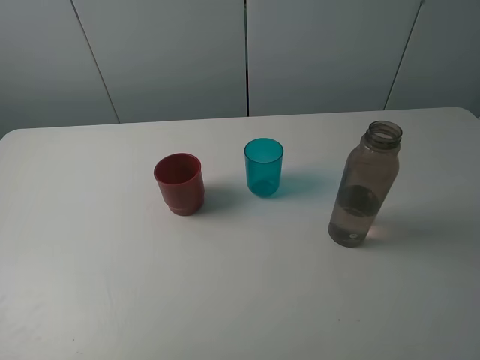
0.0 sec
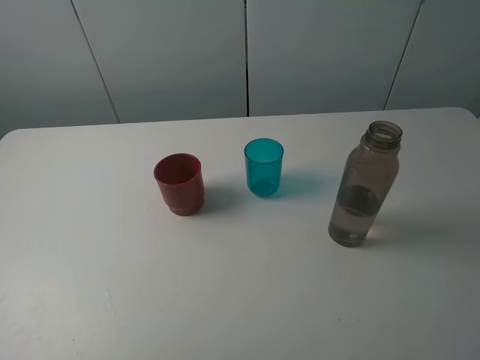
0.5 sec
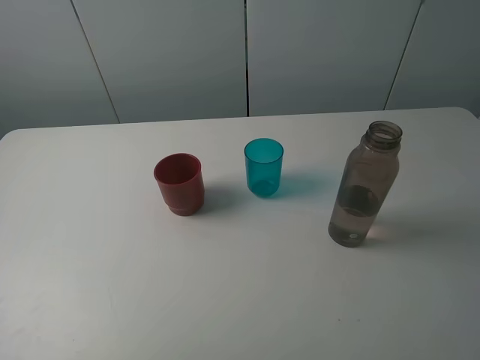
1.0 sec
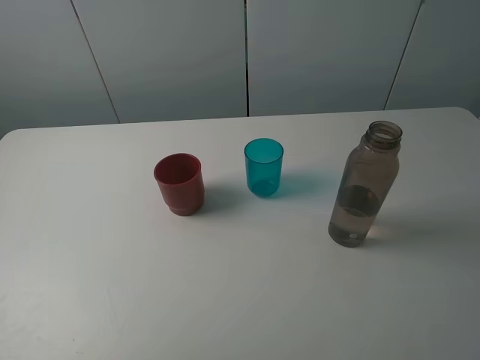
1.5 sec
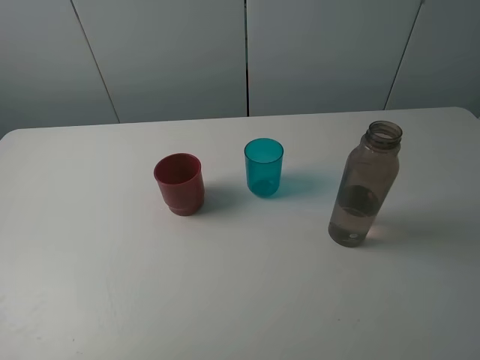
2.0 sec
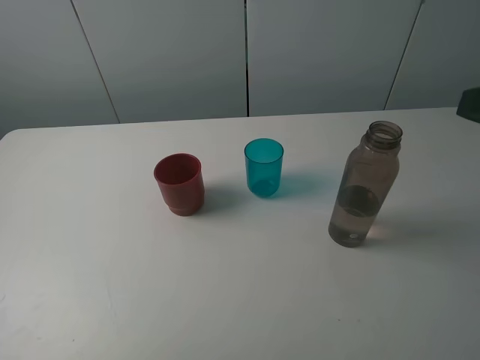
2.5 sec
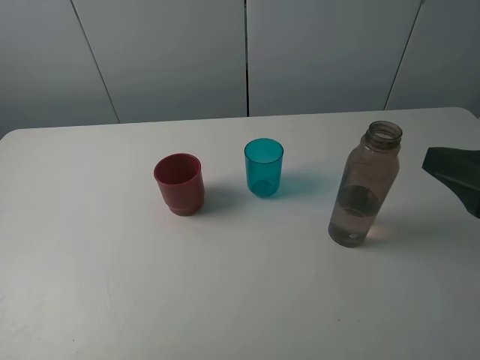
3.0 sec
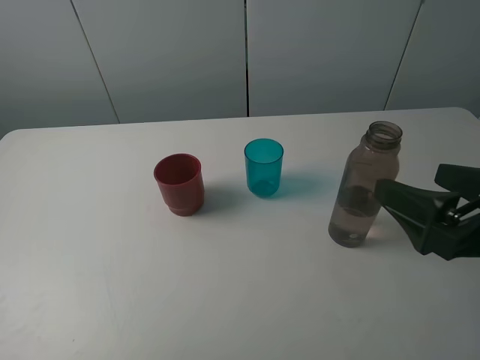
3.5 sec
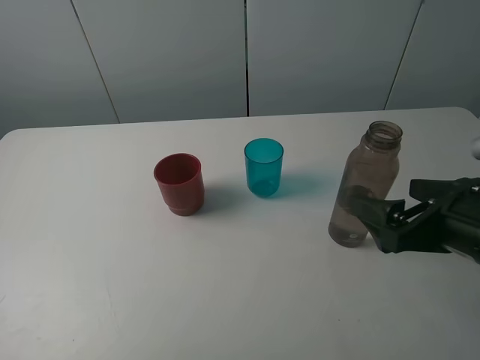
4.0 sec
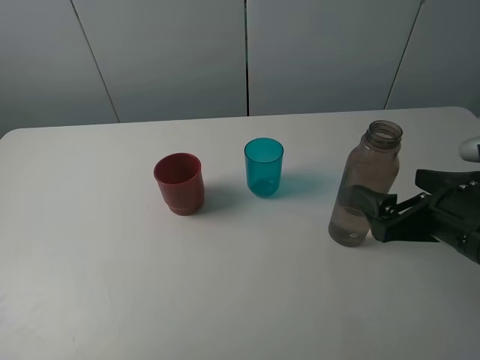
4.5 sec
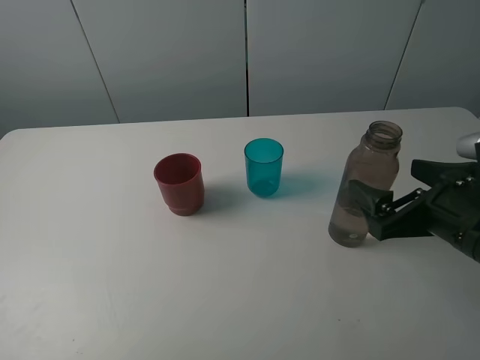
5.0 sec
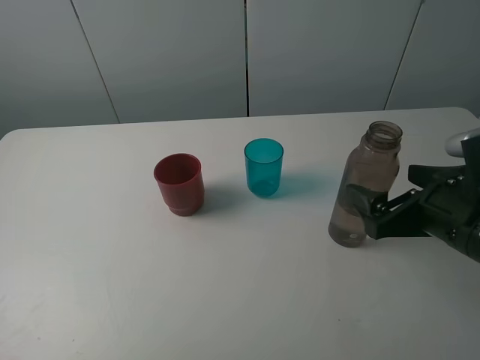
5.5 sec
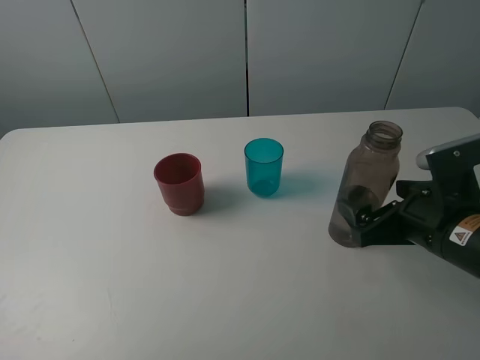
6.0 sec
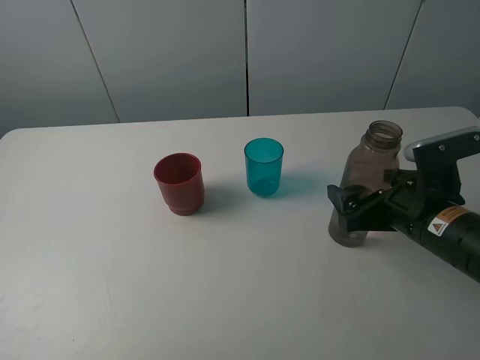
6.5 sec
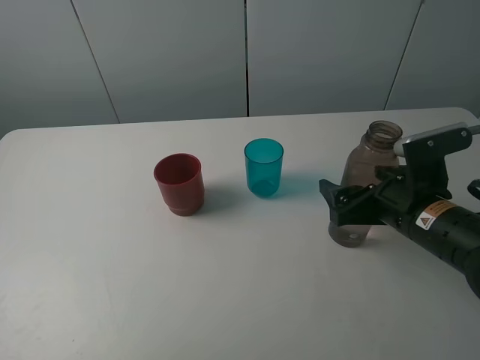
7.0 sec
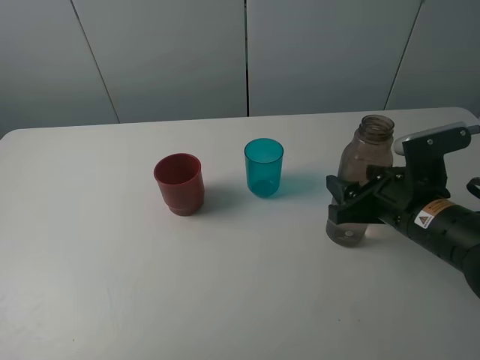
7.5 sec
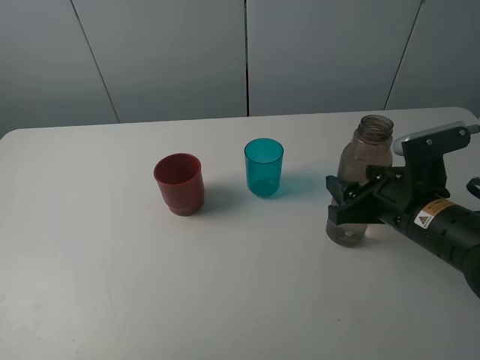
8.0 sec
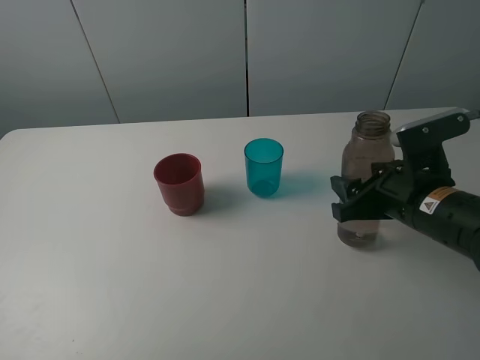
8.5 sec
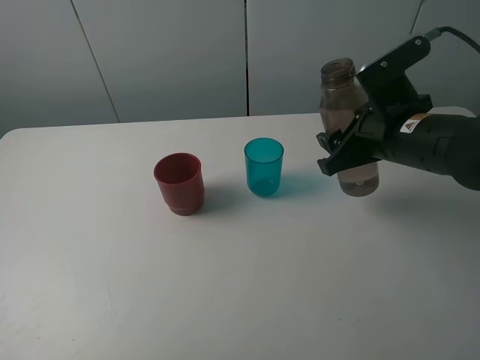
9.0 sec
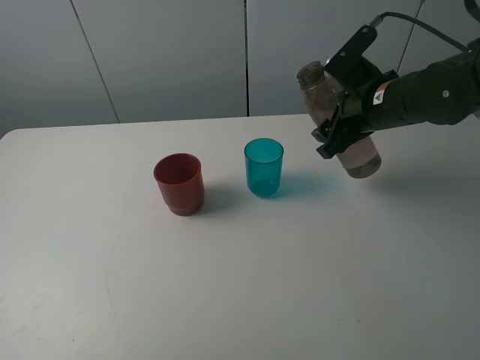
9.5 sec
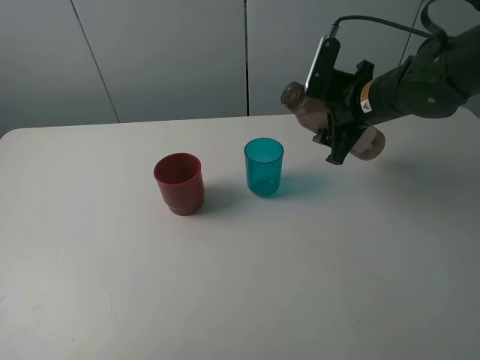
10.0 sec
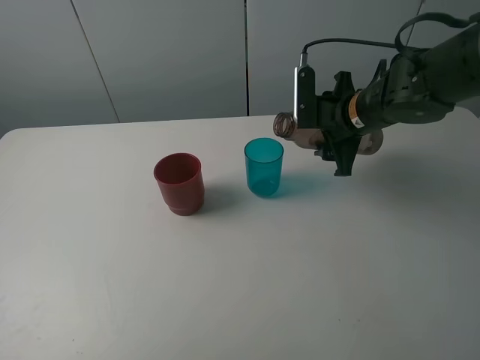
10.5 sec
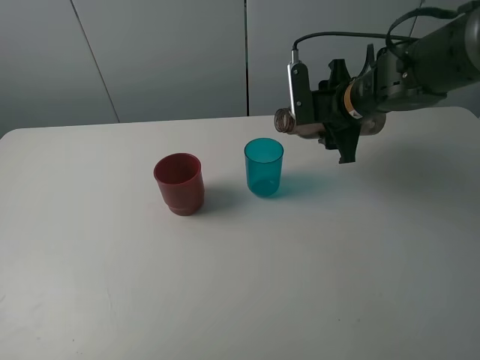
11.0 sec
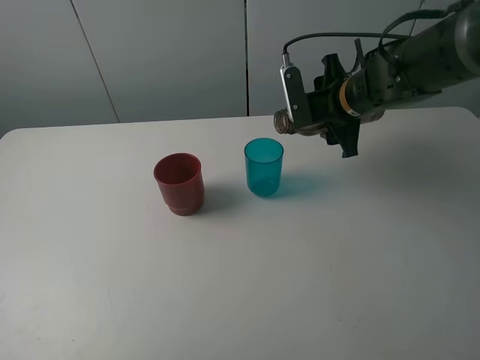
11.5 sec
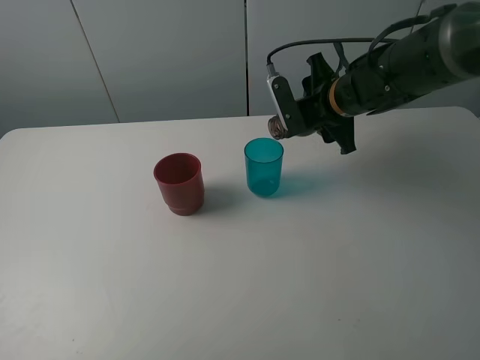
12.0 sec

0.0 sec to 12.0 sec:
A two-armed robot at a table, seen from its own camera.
Task of the whole recording: pick up the bottle and pour water into the cup, then pick up the cup containing water and pour it into another cup.
Step, 0.0 sec to 7.5 sec: Grasp the brown bottle with the right gripper.
2.0 sec to 4.0 sec: The right gripper goes about 15 cm downward and to the left.
4.0 sec to 6.0 sec: The right gripper shifts by approximately 5 cm.
6.0 sec to 8.0 sec: The right gripper closes its fingers.
8.0 sec to 10.0 sec: The right gripper is displaced forward by about 15 cm.

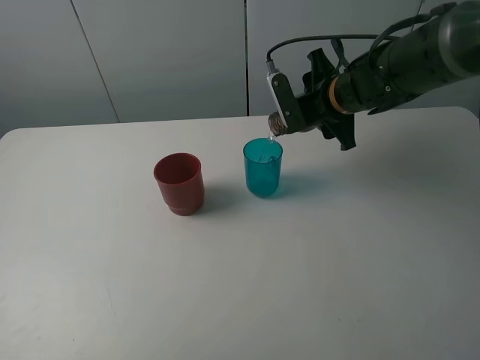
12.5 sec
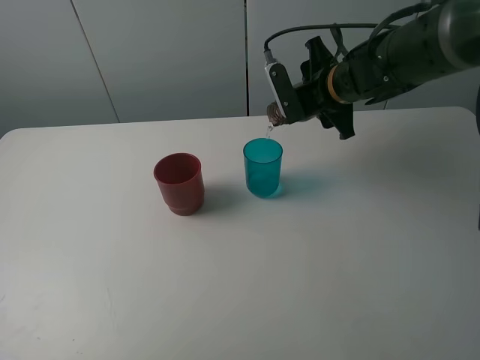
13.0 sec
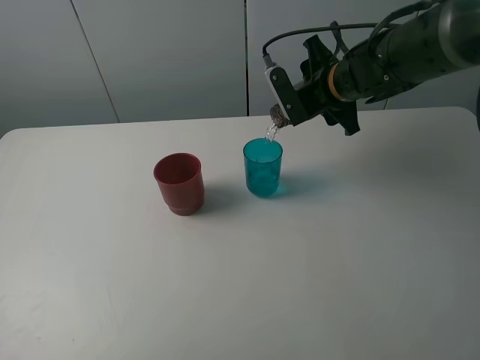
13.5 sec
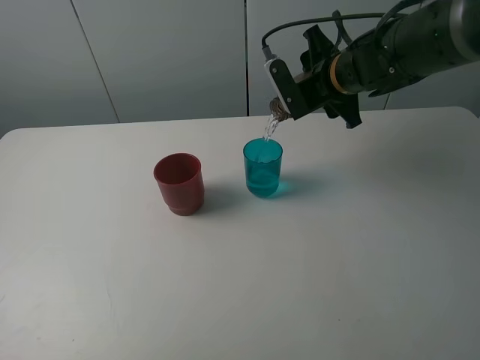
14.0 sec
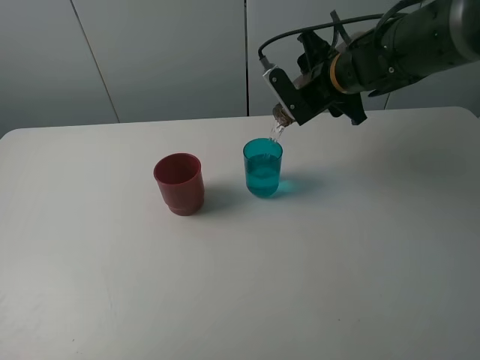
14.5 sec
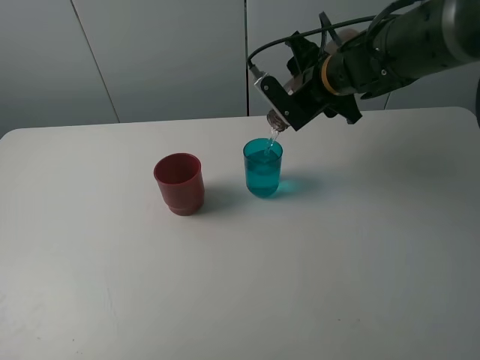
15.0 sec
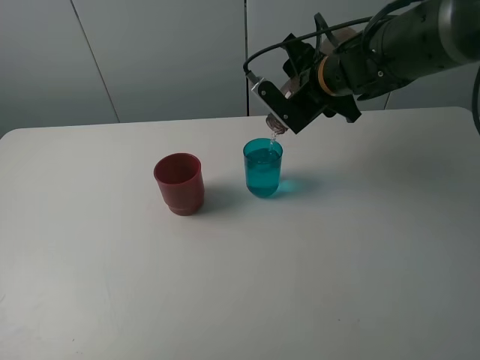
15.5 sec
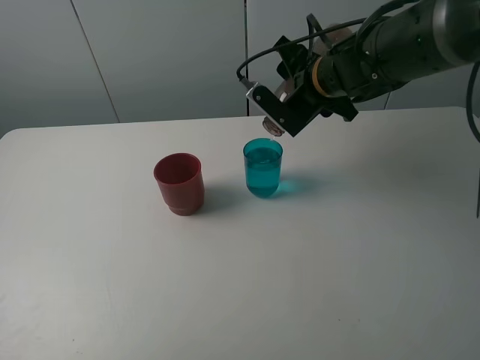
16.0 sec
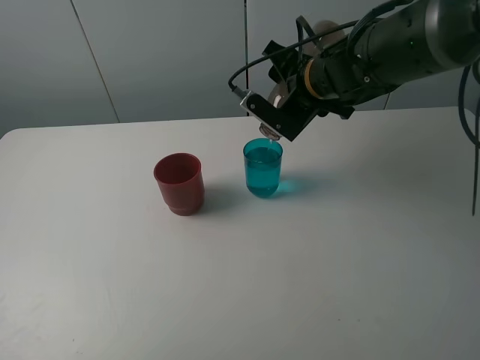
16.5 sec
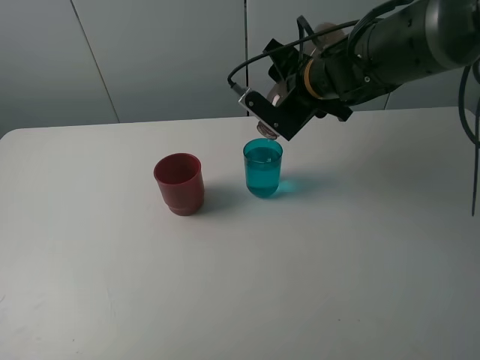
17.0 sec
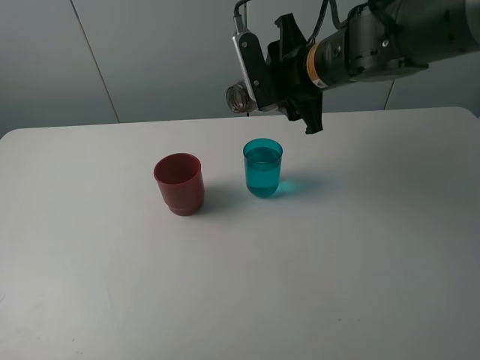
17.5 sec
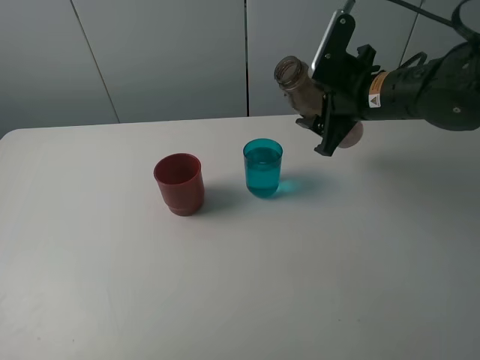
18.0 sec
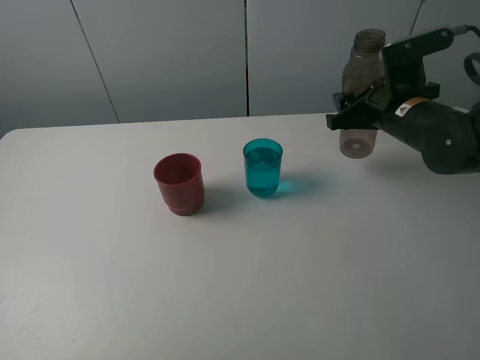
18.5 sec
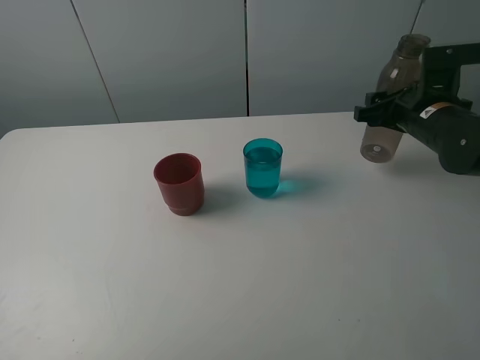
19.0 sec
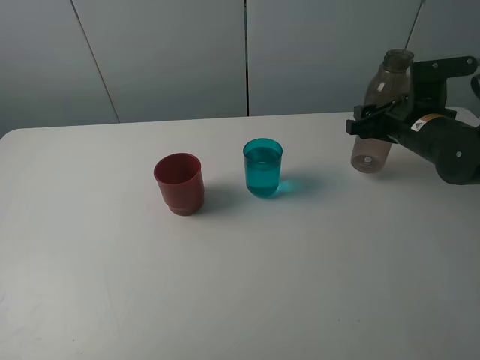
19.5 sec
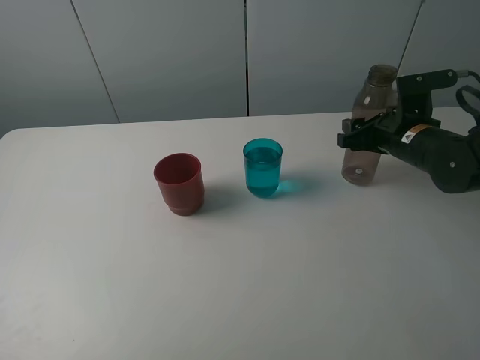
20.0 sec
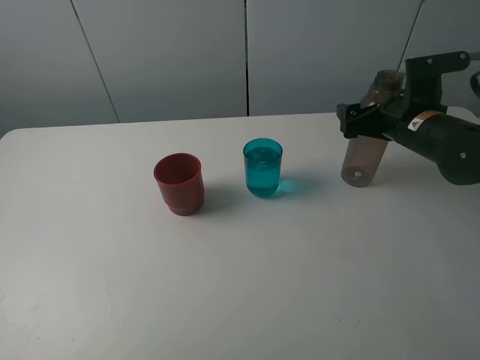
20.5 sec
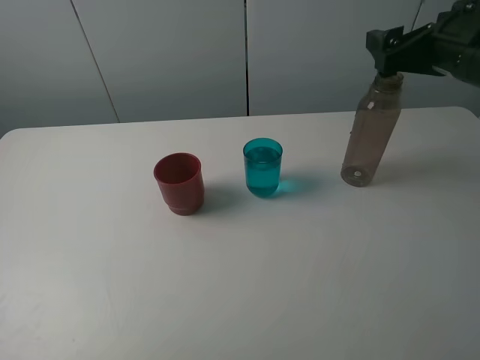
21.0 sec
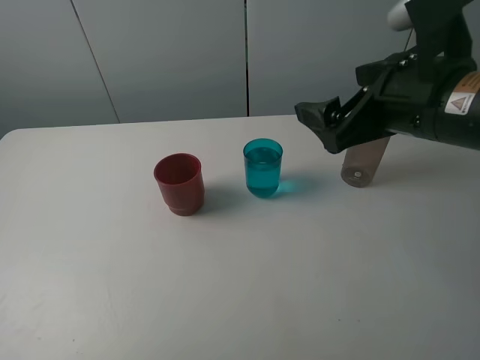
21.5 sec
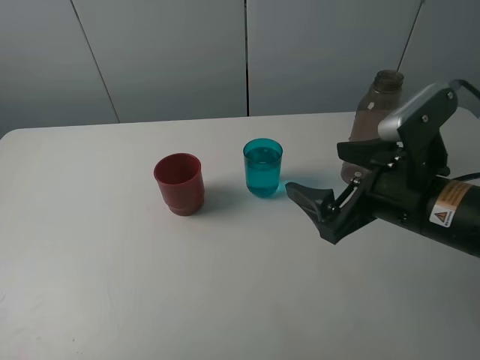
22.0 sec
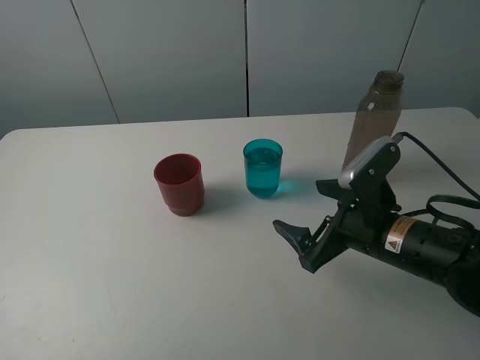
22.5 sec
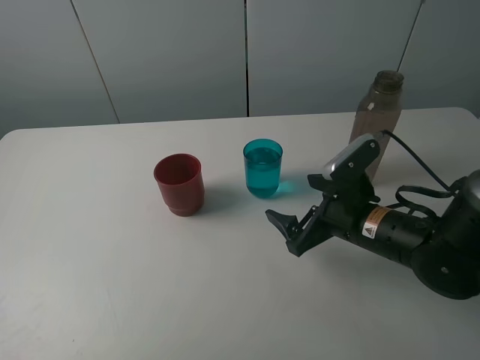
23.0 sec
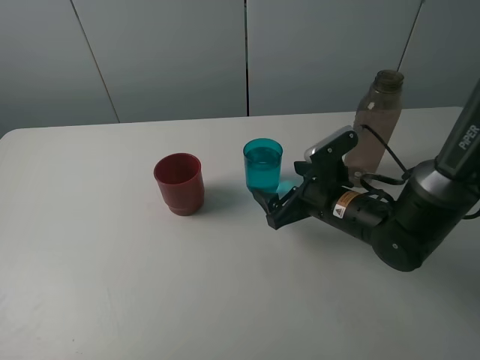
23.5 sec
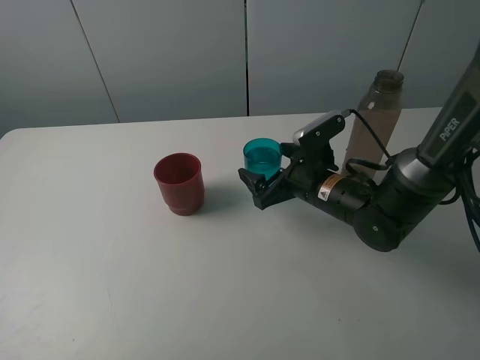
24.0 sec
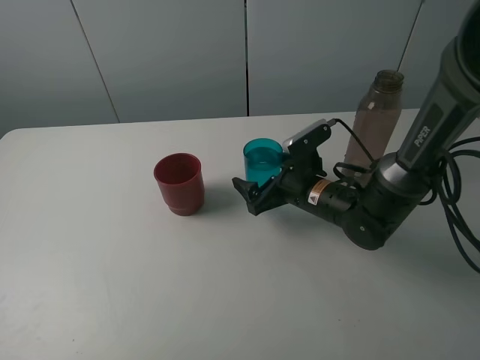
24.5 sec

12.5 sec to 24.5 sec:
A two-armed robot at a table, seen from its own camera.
Task of the whole recording: pick up the bottle and pour water into the cup, then pick up the cup containing water and pour it into another cup.
Step, 12.5 sec to 17.0 sec: Pour water from brown bottle to blue cup with the right gripper.
Step, 17.5 sec to 20.0 sec: Place the brown bottle with the right gripper.
12.5 sec to 14.5 sec: The grippers stay close to where they were, moving slightly.
14.5 sec to 16.5 sec: The grippers move only a little.
16.5 sec to 18.5 sec: The right gripper is displaced to the right by approximately 10 cm.
18.5 sec to 20.5 sec: The right gripper opens.
20.5 sec to 22.5 sec: The right gripper moves backward and to the left, approximately 15 cm, and moves roughly 10 cm upward and comes back.
22.5 sec to 24.5 sec: The right gripper travels forward and to the left by some 10 cm.

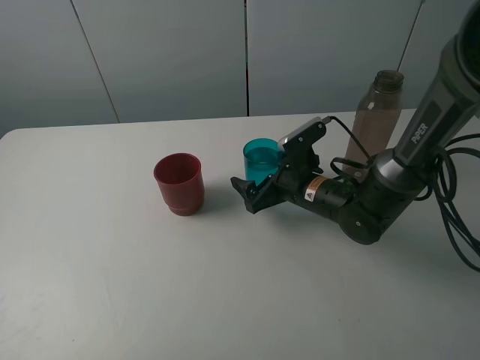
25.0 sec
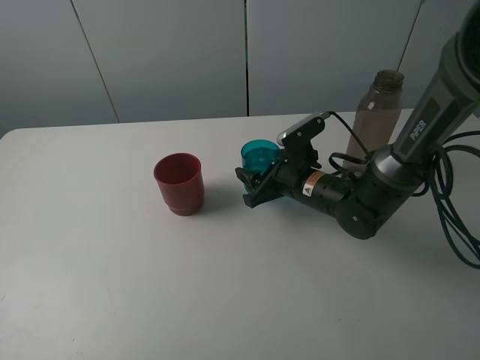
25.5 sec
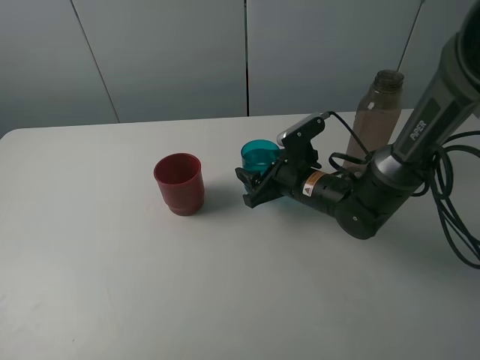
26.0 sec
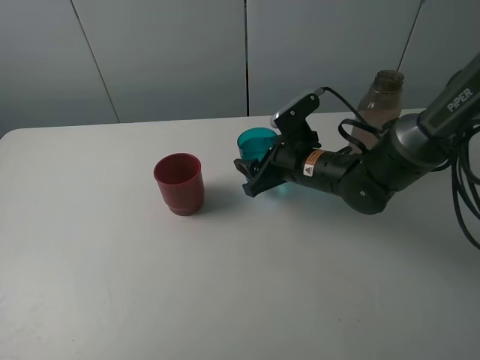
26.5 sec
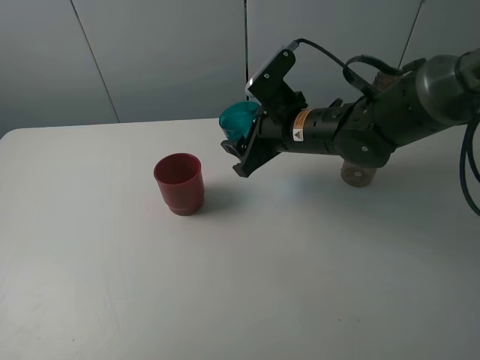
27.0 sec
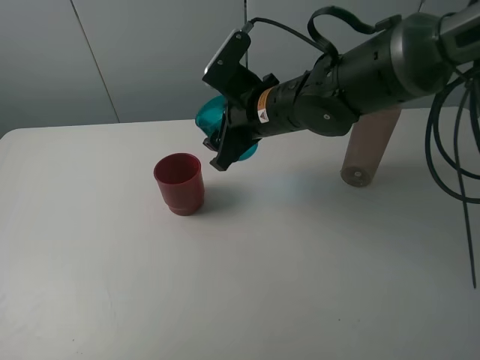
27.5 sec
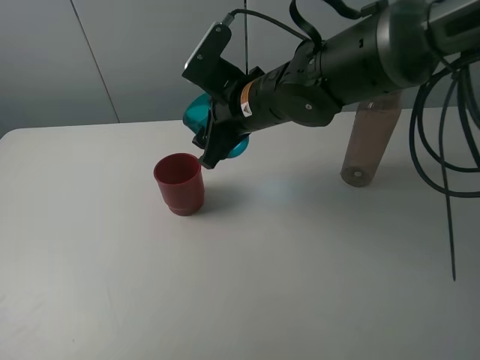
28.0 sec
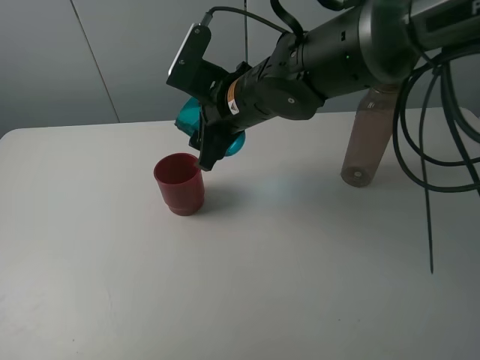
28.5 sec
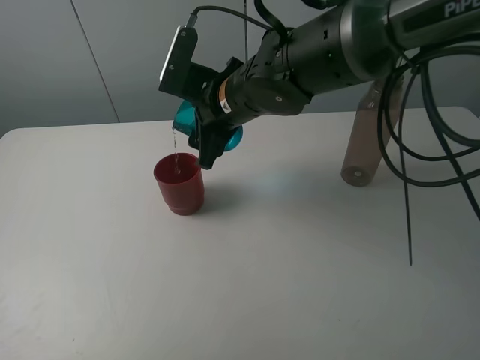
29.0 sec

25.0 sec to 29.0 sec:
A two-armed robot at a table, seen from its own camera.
Task of the whole recording: pick up the bottle and pour water into the cup, then pick up the cup containing water and pour it into another cup.
25.0 sec to 27.0 sec: The right gripper shifts about 10 cm upward, and closes.
27.0 sec to 29.0 sec: The right gripper heads to the left, covering roughly 10 cm.
